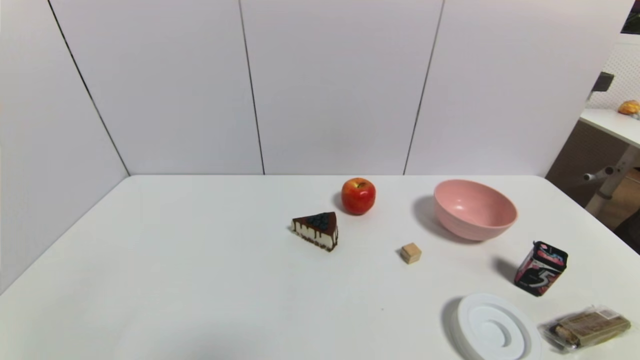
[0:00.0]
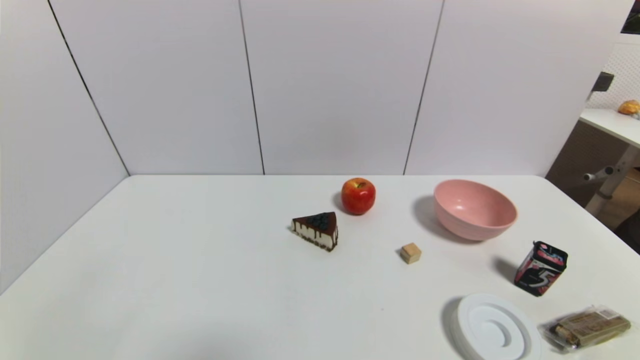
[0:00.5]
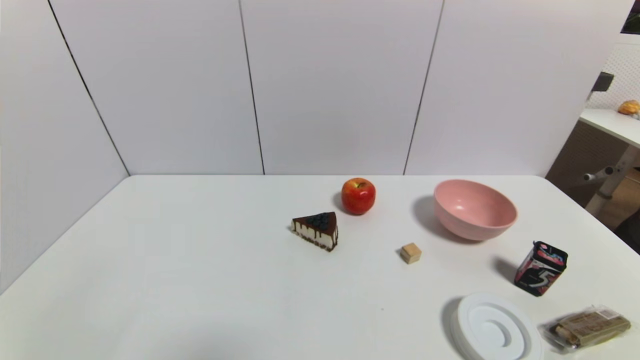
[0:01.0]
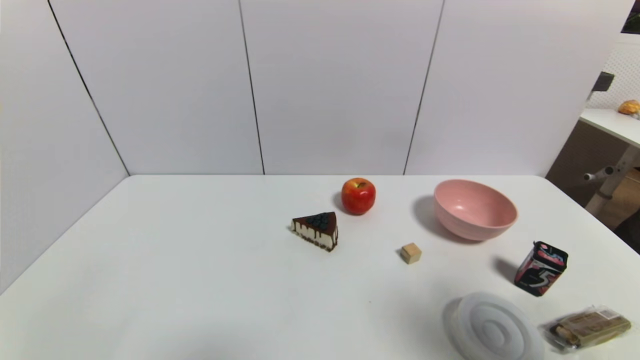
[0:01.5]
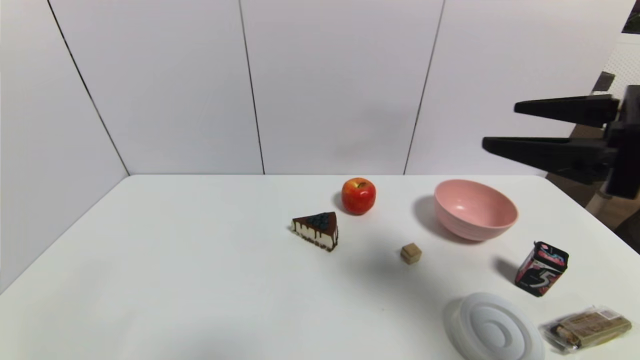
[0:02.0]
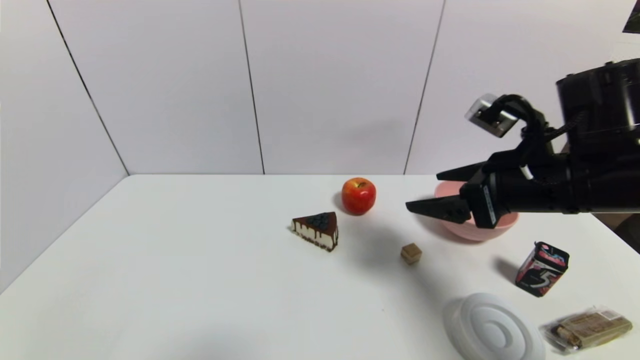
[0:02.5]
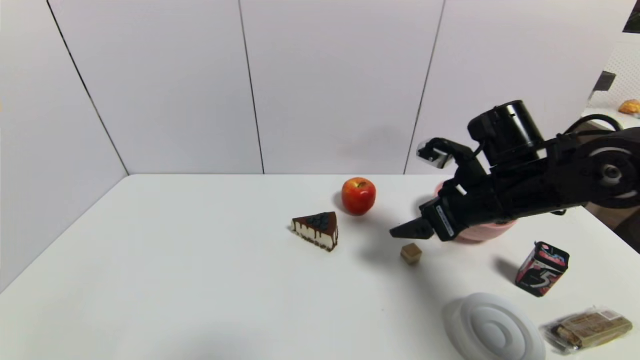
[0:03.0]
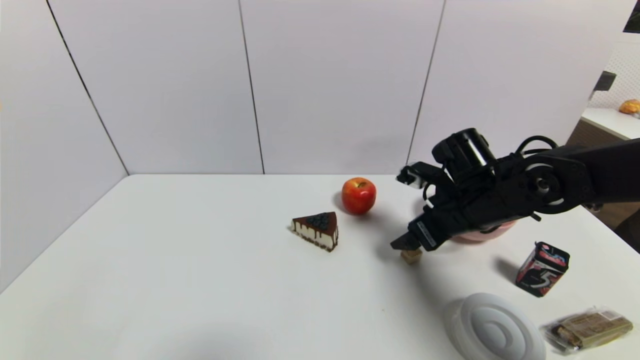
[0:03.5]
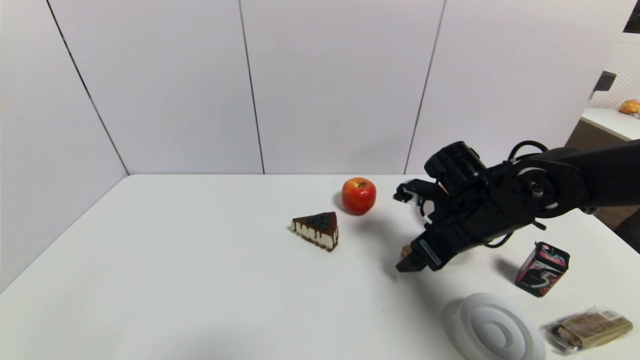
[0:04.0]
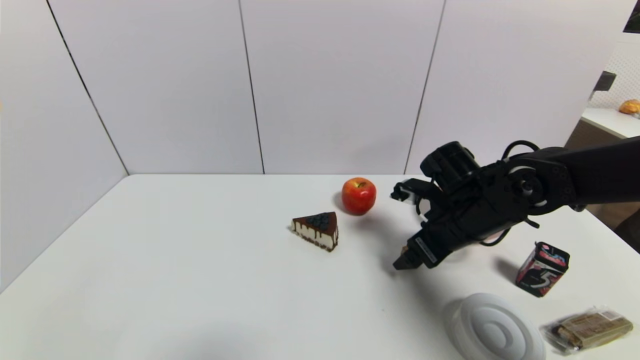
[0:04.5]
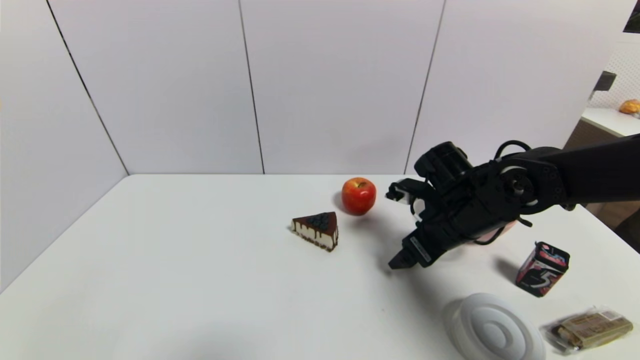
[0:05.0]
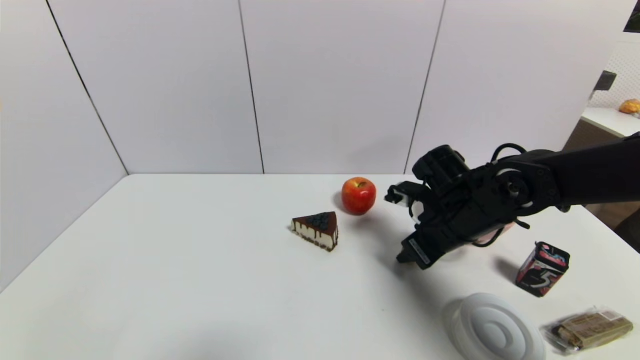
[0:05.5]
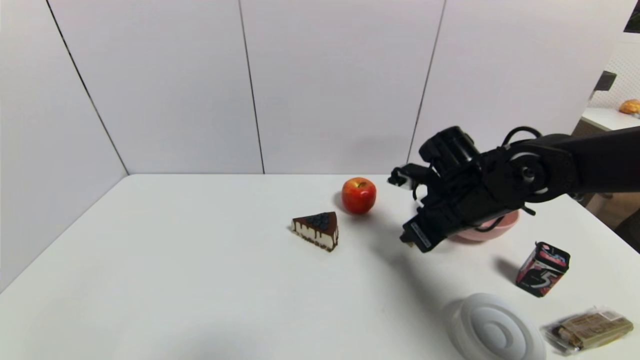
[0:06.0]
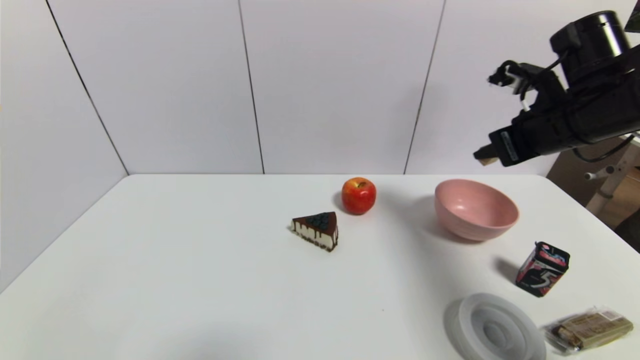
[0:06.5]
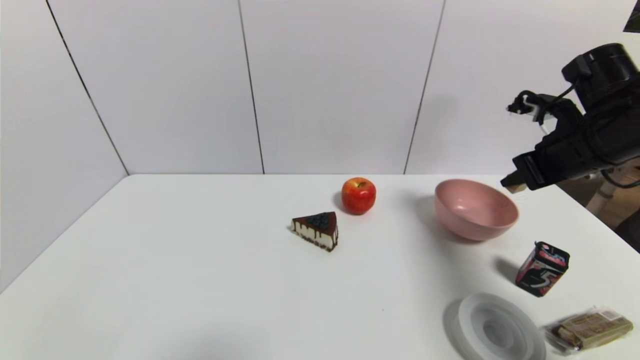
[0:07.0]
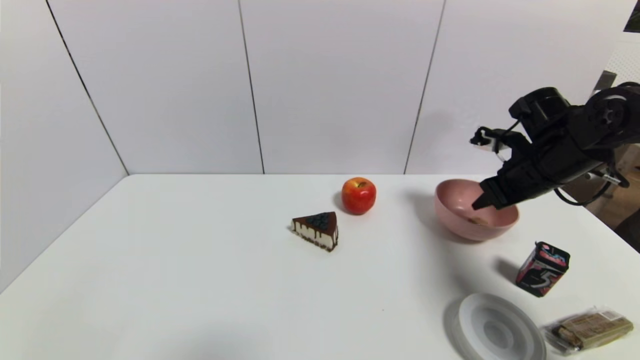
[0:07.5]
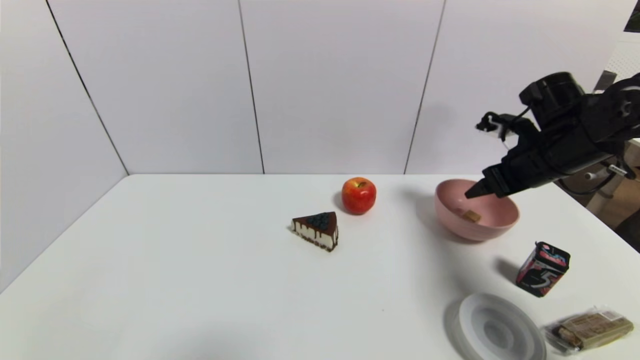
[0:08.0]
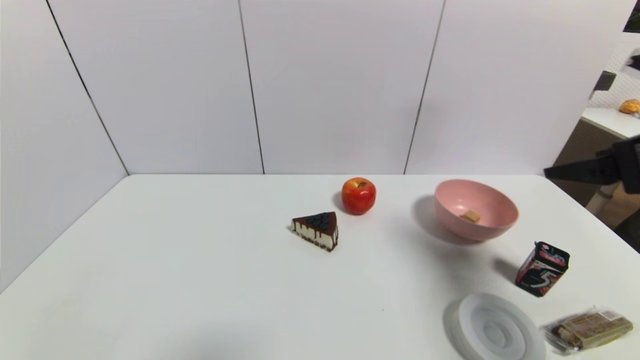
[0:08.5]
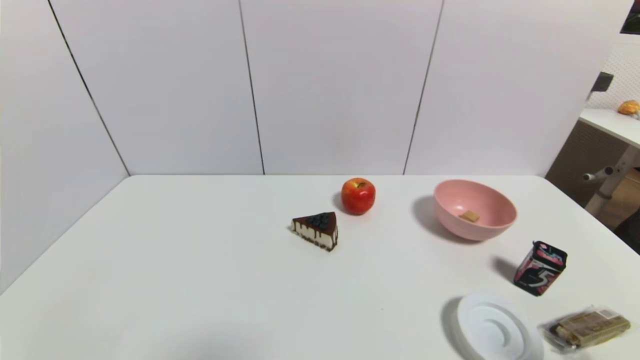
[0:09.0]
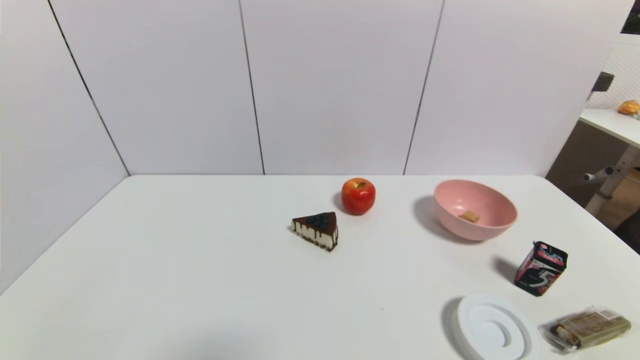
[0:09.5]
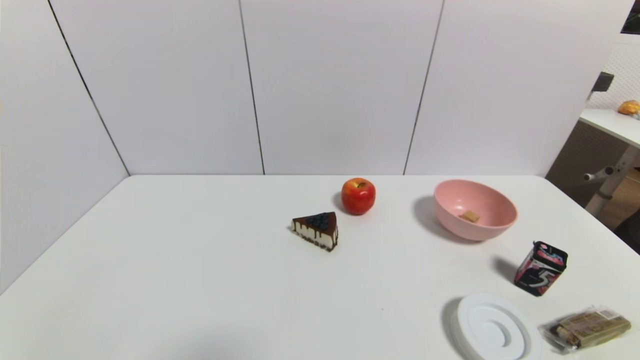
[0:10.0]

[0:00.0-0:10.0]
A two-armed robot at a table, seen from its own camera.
Task of the whole recording: use a gripper to pick the target object and place on the pink bowl.
Step, 0:00.0 to 0:05.5: Grasp the square wooden block with the right gripper.
Step, 0:06.0 to 0:08.0: Place the square wooden block on the pink bowl with the right gripper.
0:00.0 to 0:02.0: The right gripper is displaced upward and forward by some 30 cm.
0:02.0 to 0:04.0: The right gripper goes about 20 cm downward and forward.
0:04.0 to 0:06.0: The right gripper closes its fingers.
0:06.0 to 0:08.0: The right gripper is displaced to the right and upward by about 15 cm, and opens its fingers.
0:08.0 to 0:10.0: The right gripper heads backward and downward, covering approximately 40 cm.
